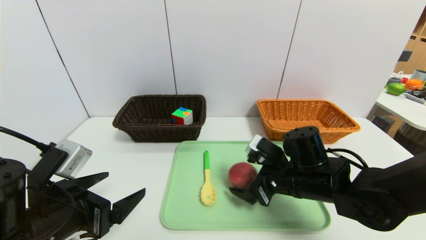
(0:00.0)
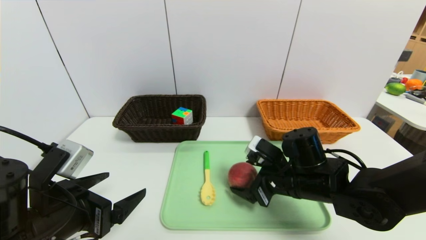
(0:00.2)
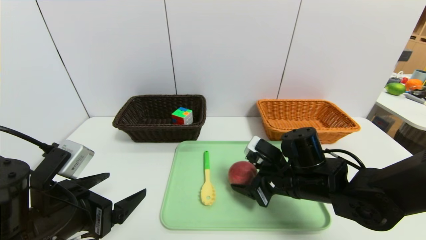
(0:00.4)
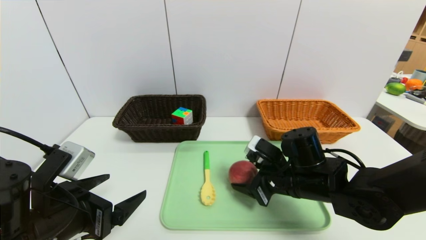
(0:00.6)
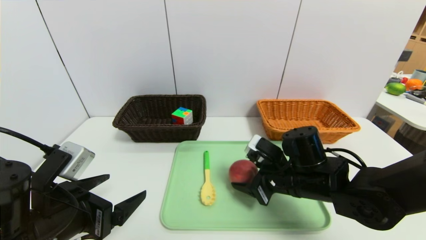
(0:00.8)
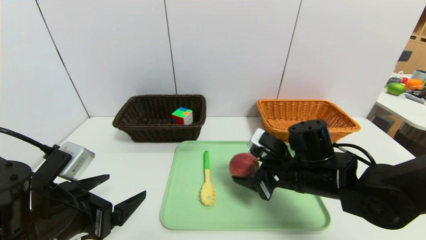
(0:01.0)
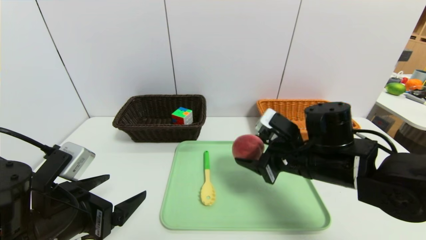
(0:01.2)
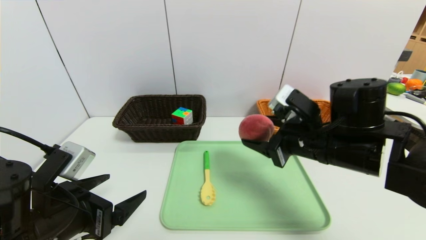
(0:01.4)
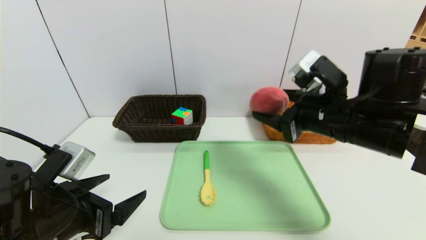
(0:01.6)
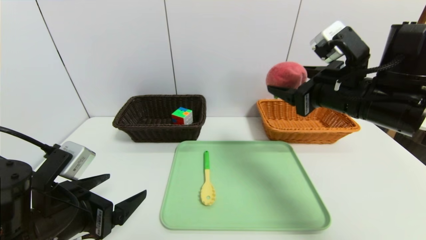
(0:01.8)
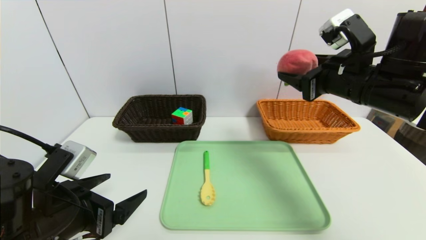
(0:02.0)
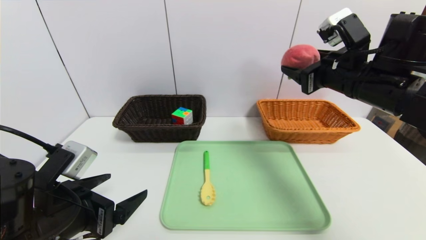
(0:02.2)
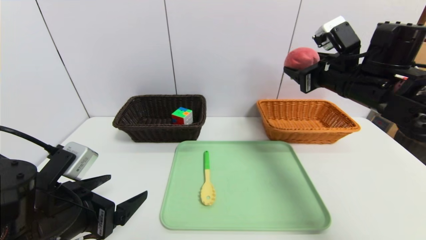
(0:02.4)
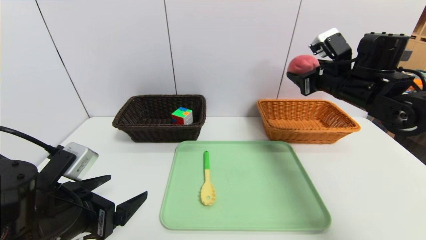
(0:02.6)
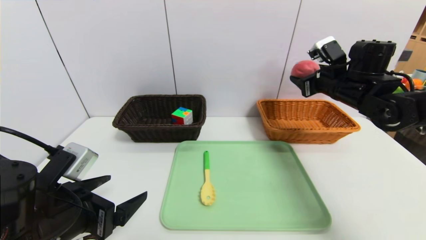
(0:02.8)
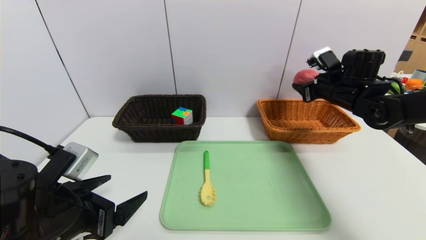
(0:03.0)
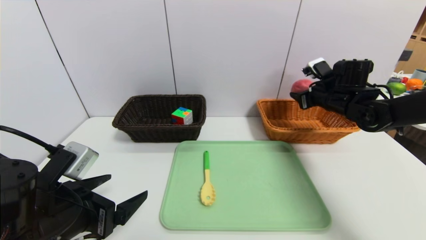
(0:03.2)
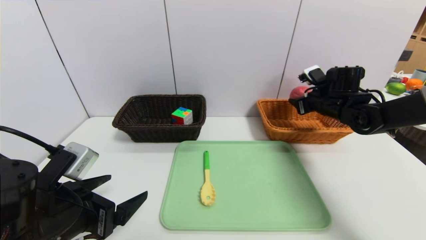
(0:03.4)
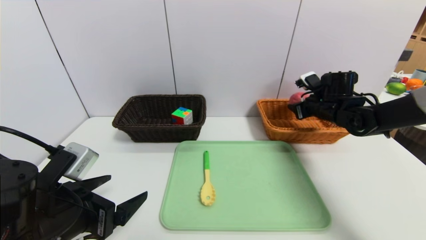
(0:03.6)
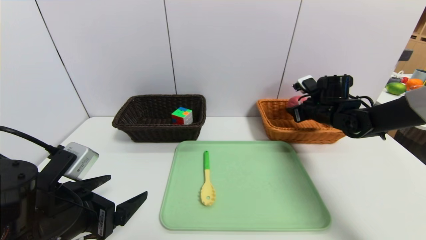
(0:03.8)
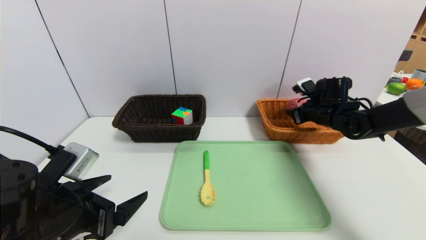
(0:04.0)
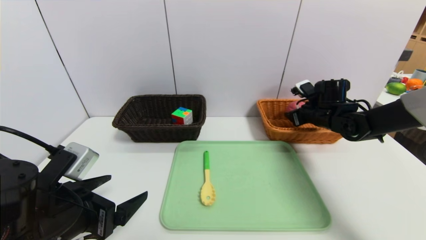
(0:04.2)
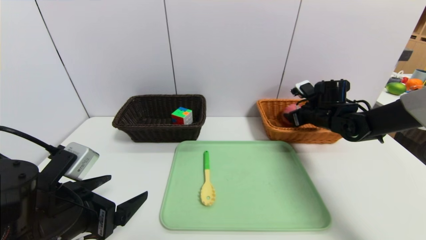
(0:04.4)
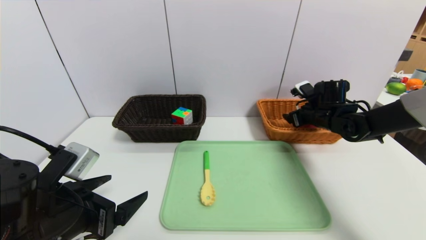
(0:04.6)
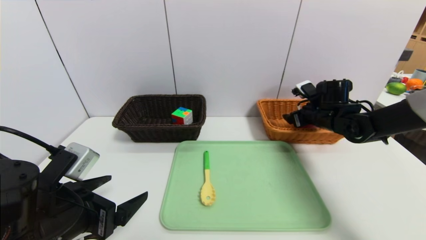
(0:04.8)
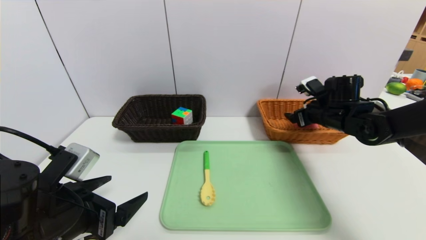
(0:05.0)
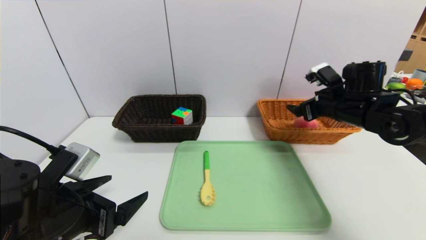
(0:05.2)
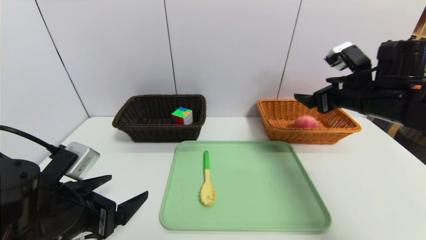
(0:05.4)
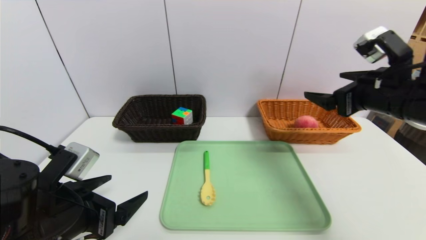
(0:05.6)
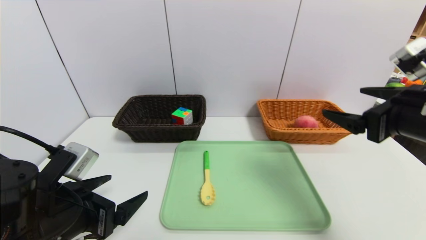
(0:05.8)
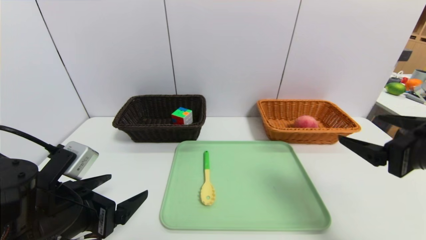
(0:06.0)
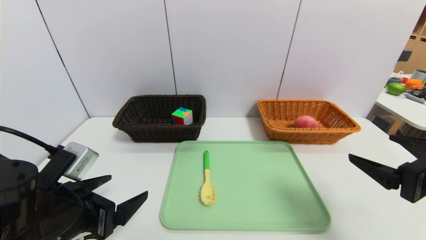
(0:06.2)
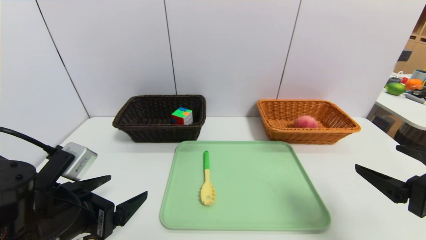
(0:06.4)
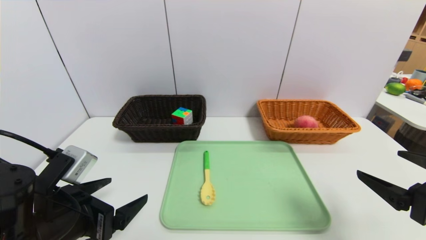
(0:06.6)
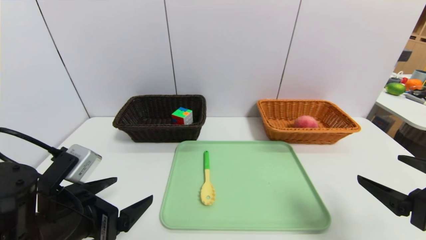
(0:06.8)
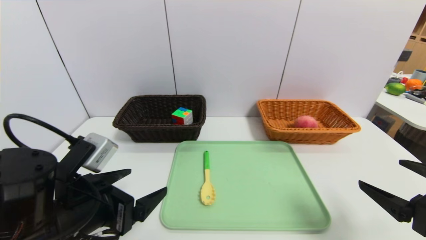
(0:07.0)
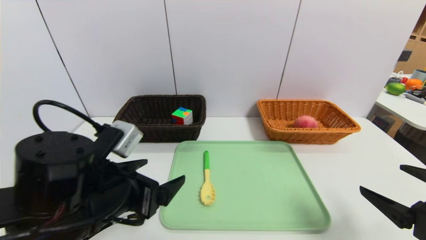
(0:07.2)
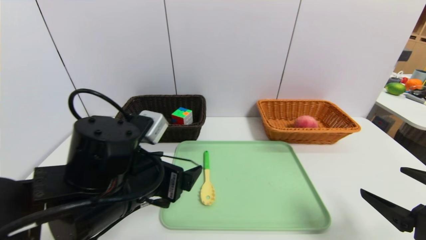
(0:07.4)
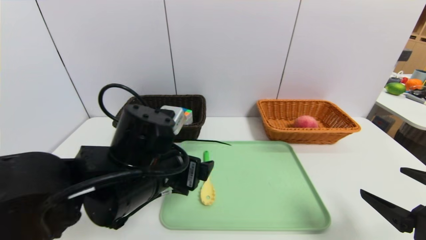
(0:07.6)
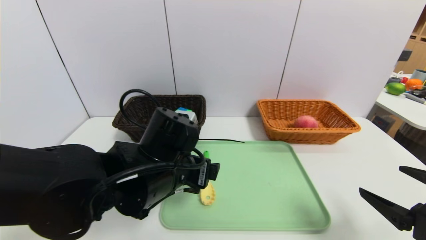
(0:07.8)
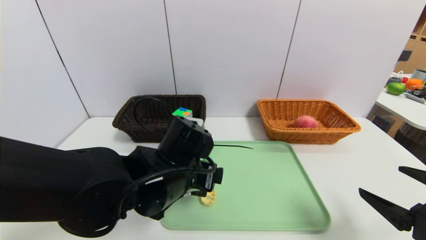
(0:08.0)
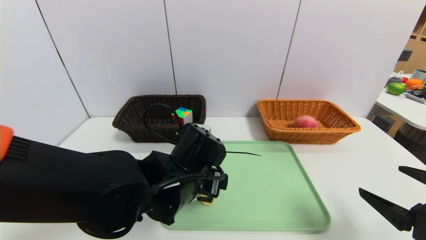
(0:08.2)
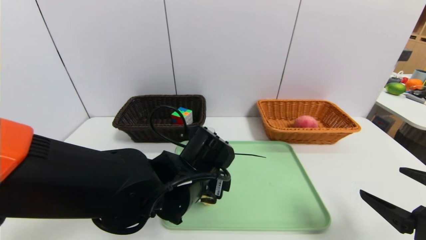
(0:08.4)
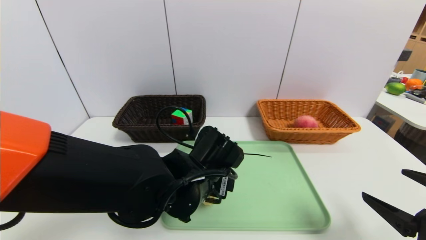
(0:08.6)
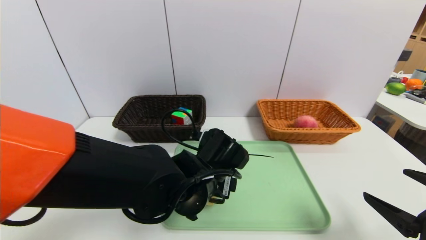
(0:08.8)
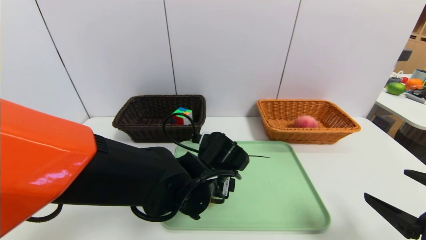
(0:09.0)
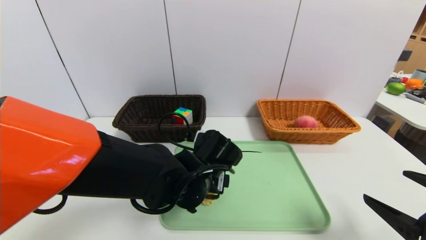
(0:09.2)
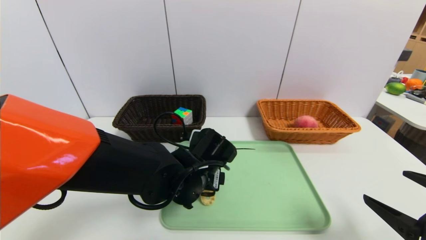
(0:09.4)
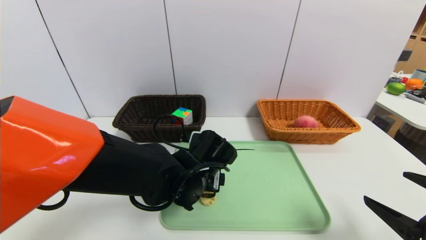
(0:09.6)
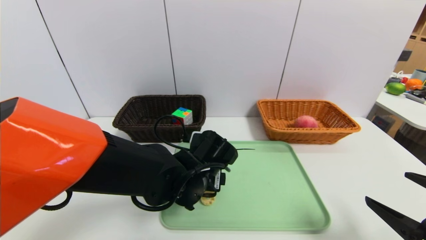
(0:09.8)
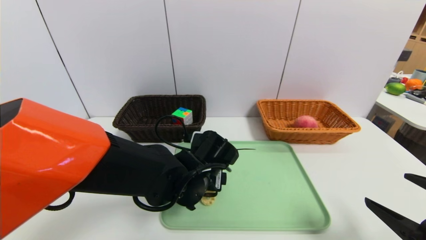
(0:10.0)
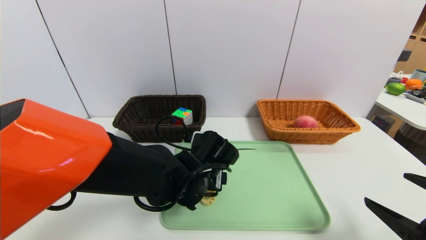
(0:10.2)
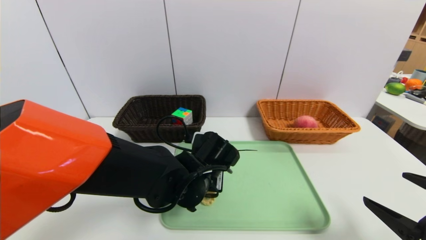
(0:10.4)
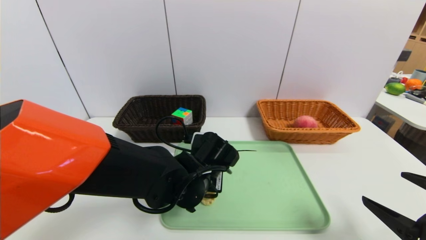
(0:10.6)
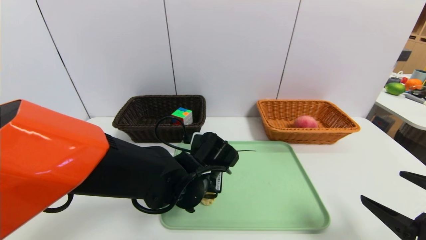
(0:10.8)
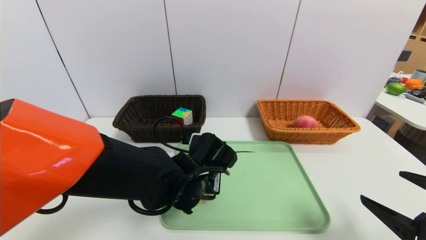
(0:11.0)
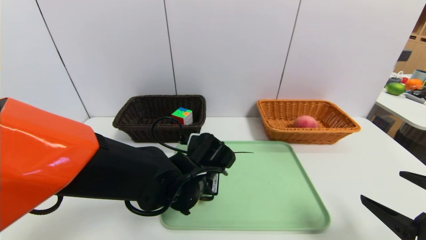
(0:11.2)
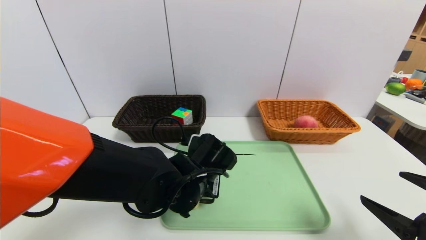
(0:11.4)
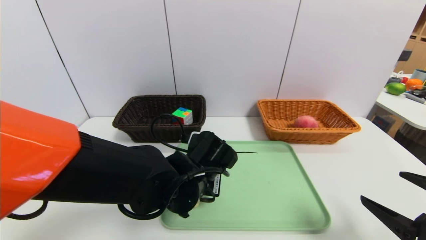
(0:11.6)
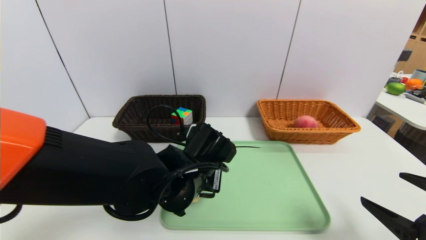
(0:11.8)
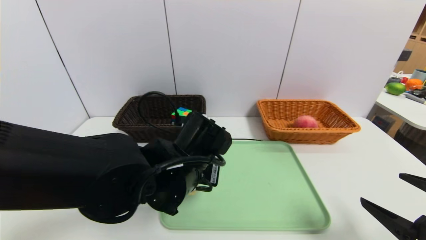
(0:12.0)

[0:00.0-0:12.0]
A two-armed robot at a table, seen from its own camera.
Task of the whole recording: place the food in the right basket with the right gripper, and place the non food items in the left basket with the left gripper.
Step, 0:00.0 to 0:04.6: Grasp the peach and put it in the right basket.
0:00.0 to 0:01.6: The right gripper heads upward, covering approximately 15 cm.
0:01.6 to 0:03.0: The right gripper heads forward and to the right, covering roughly 20 cm.
0:03.0 to 0:04.4: The right gripper travels downward by approximately 10 cm.
0:04.4 to 0:06.0: The right gripper goes some 25 cm backward.
0:06.0 to 0:07.6: The left gripper travels to the right and forward by roughly 15 cm. The right gripper travels downward and backward by about 10 cm.
0:07.6 to 0:09.0: The left gripper heads to the right and downward, covering about 10 cm.
0:09.0 to 0:10.4: The grippers make only small movements.
0:10.4 to 0:12.0: The left gripper travels upward by about 5 cm, and closes up.

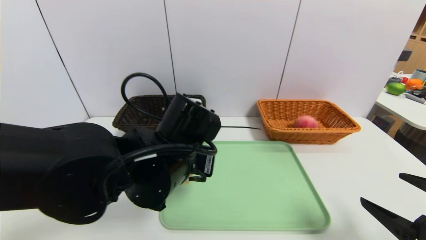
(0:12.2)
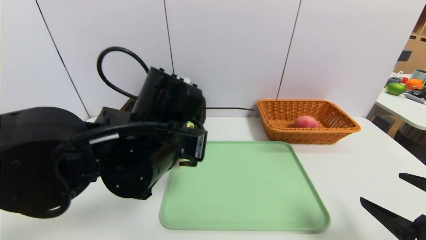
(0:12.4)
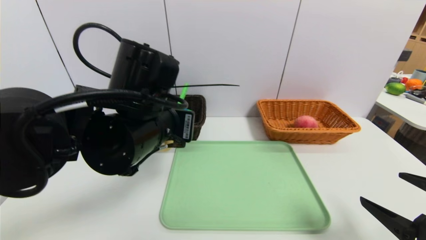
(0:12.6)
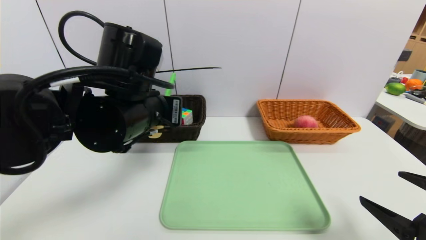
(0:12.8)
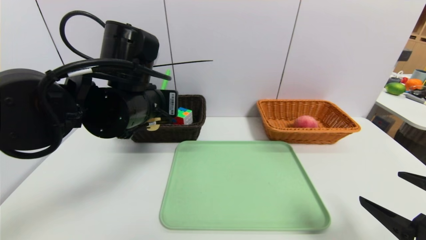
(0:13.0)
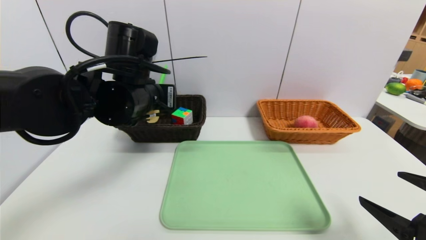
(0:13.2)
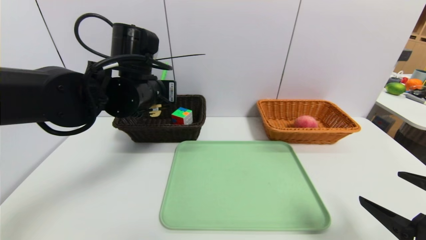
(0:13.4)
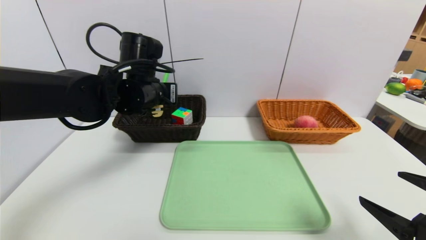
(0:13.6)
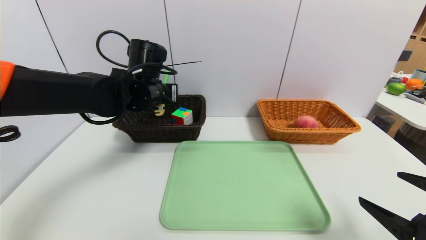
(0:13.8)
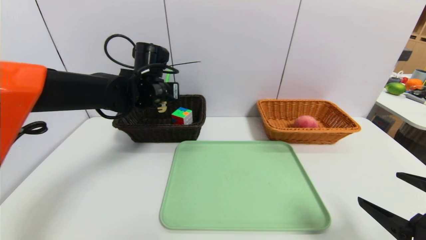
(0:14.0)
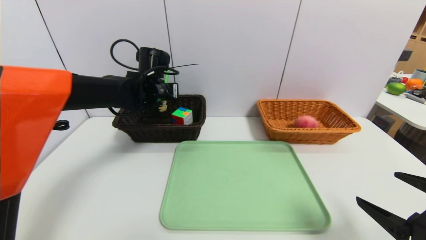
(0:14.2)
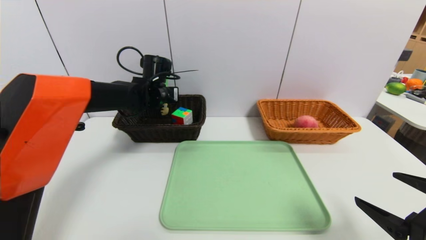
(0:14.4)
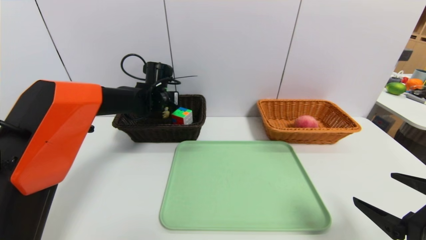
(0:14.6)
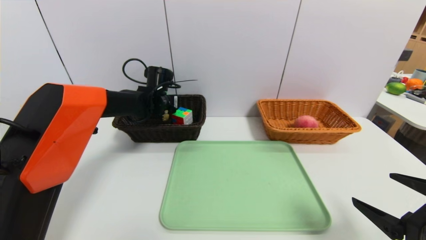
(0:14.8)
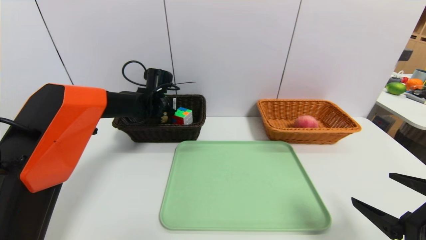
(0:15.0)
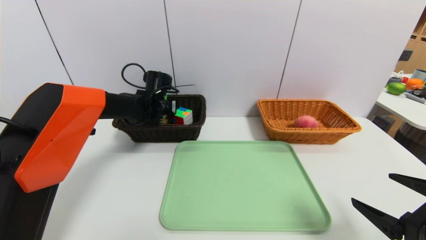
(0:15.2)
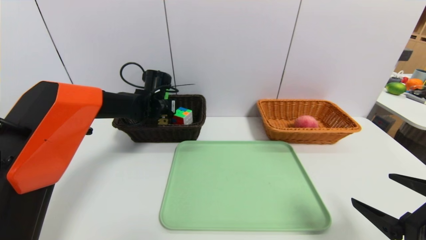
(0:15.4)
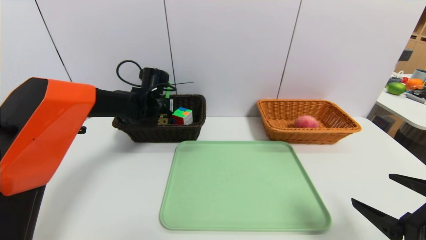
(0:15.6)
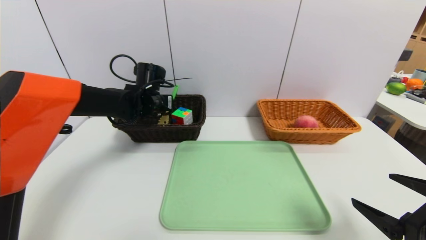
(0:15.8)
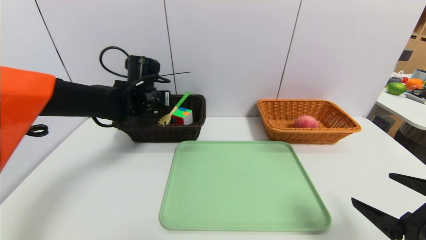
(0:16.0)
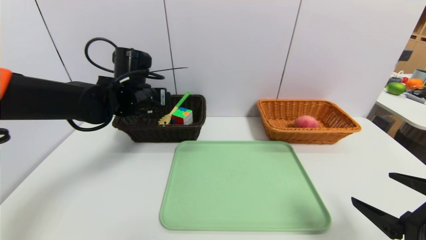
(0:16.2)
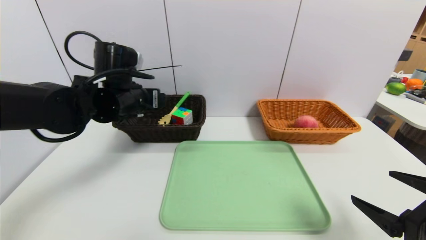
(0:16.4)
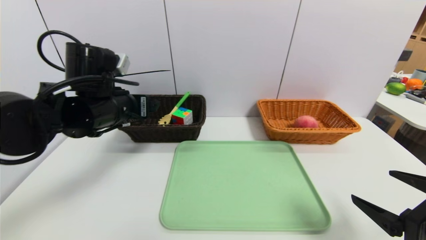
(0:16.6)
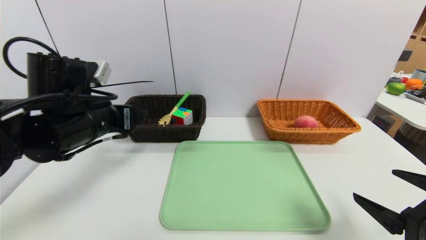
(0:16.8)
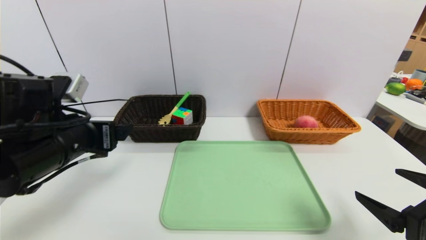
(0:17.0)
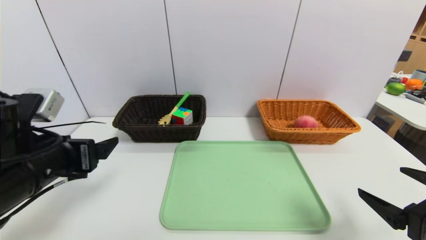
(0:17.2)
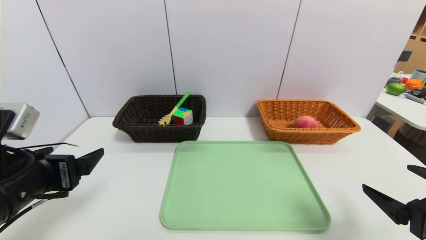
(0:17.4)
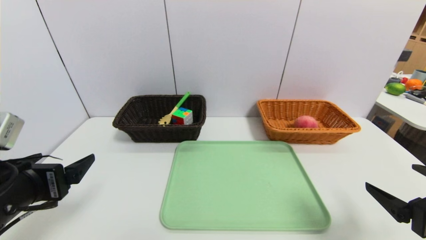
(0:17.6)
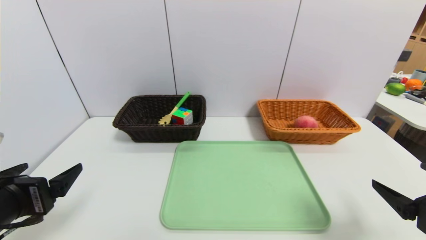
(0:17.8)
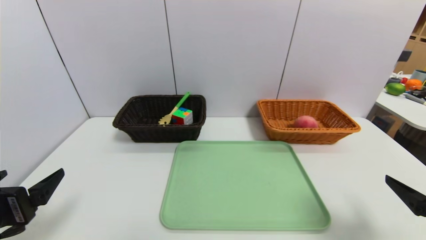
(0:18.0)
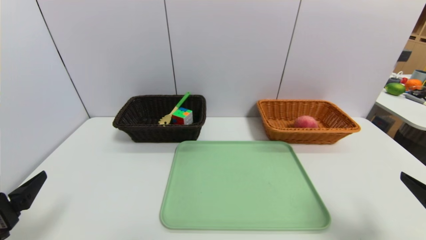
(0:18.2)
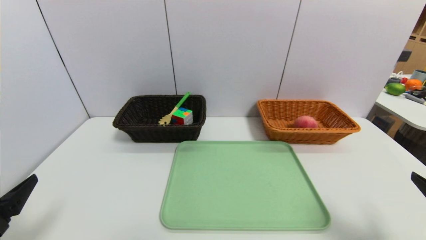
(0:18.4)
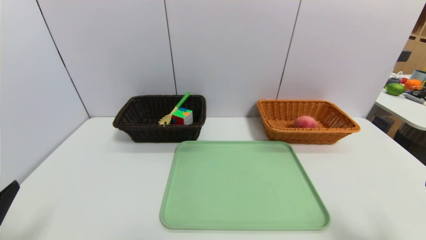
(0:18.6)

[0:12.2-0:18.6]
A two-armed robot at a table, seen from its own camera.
Task of the whole recording: place the food in the right basket with the right gripper, and place the non food items in the left basket with the left gripper.
Step, 0:12.2 to 0:15.8: Grasp the back scratcher and put it in the left basket.
0:12.2 to 0:13.8: The left gripper goes approximately 15 cm forward and to the left.
0:13.8 to 0:15.4: The left gripper heads forward and downward, covering some 15 cm, and opens its fingers.
0:15.4 to 0:17.0: The left gripper moves backward, some 25 cm, and opens up.
0:17.0 to 0:18.6: The right gripper shifts by some 5 cm. The left gripper is displaced backward and to the left by some 20 cm.
